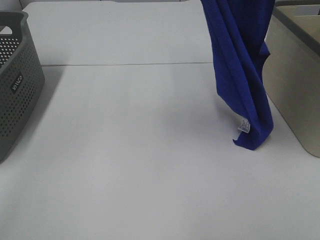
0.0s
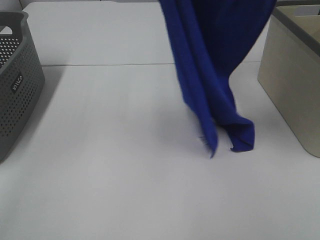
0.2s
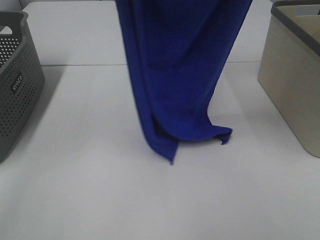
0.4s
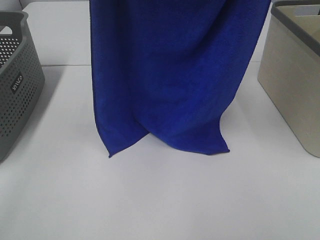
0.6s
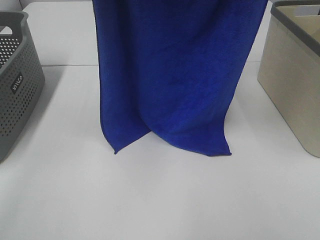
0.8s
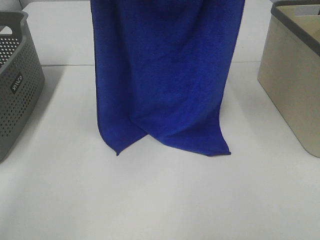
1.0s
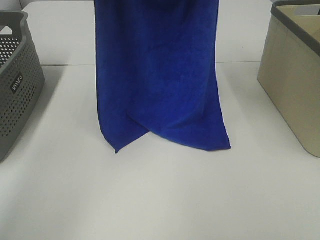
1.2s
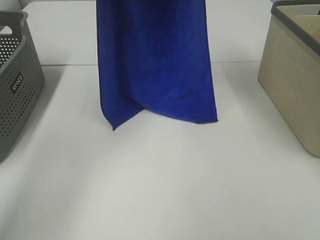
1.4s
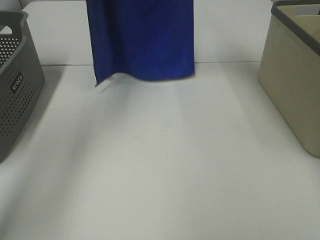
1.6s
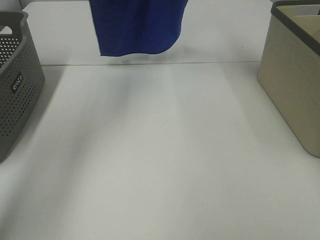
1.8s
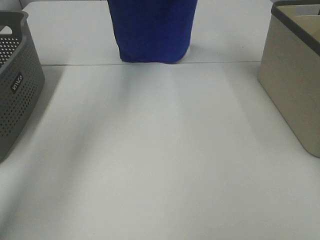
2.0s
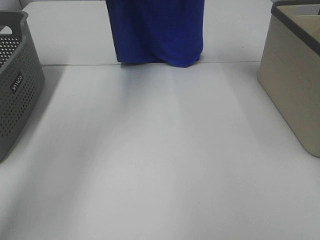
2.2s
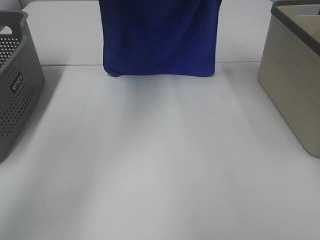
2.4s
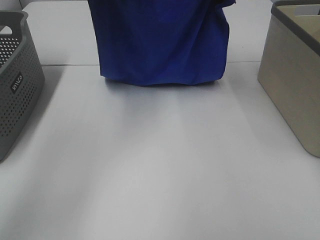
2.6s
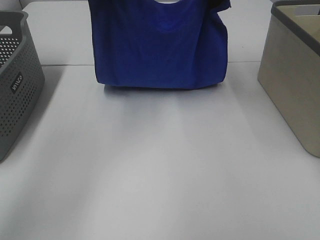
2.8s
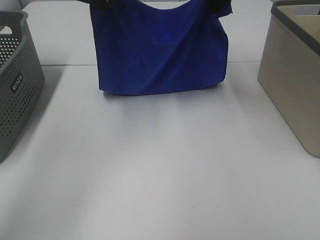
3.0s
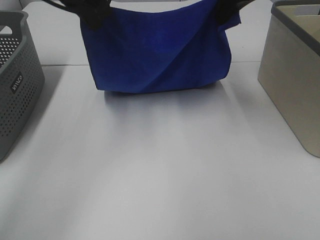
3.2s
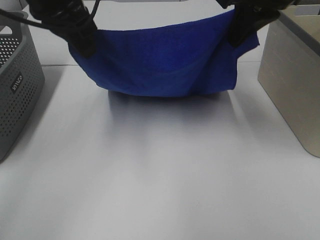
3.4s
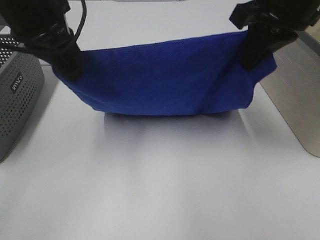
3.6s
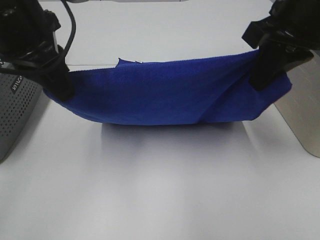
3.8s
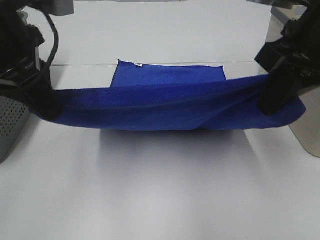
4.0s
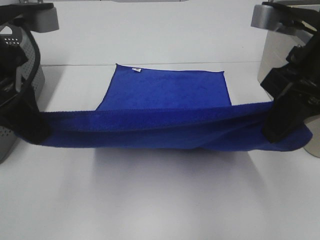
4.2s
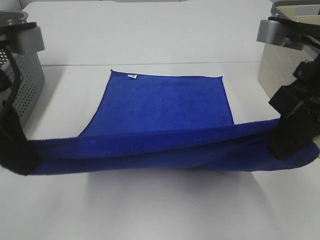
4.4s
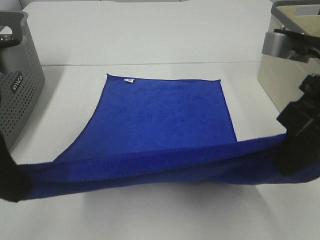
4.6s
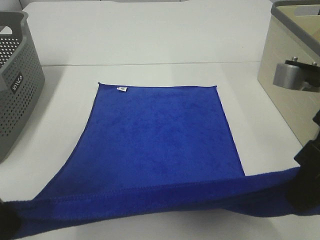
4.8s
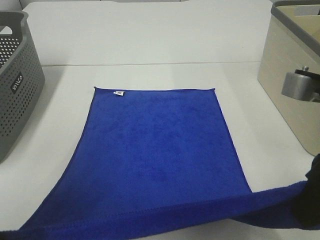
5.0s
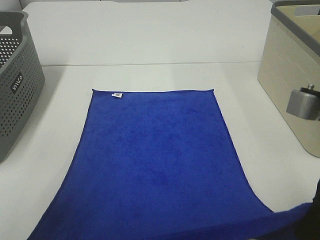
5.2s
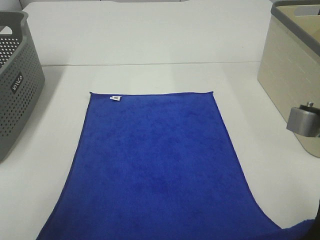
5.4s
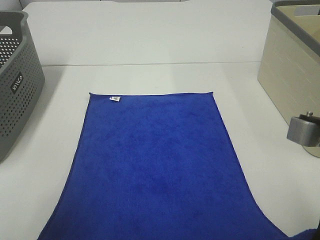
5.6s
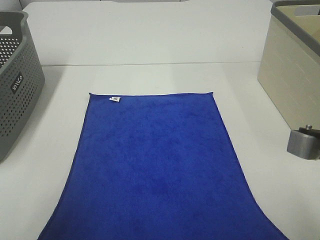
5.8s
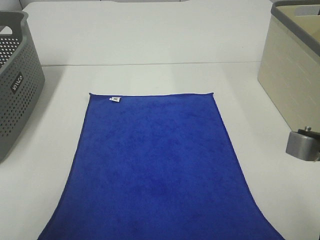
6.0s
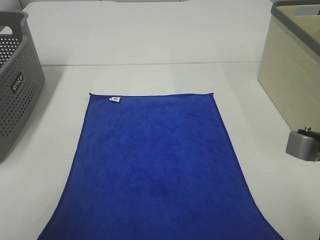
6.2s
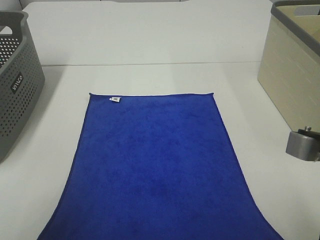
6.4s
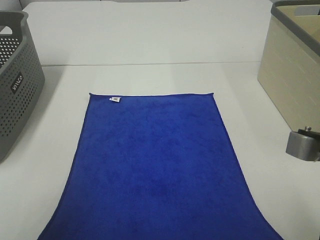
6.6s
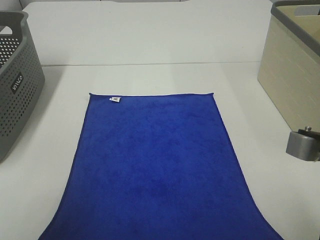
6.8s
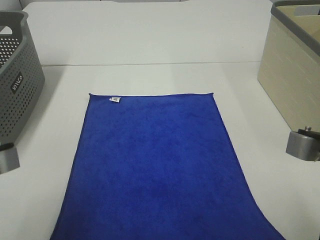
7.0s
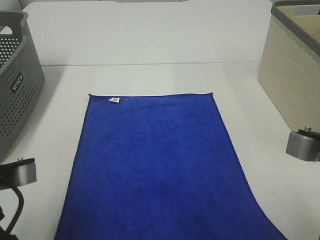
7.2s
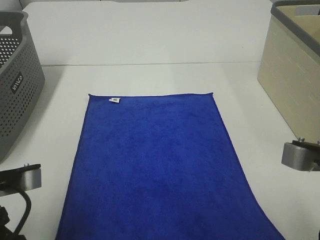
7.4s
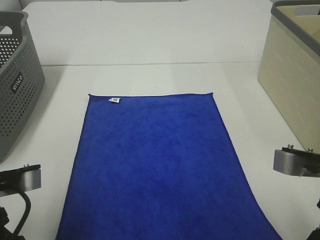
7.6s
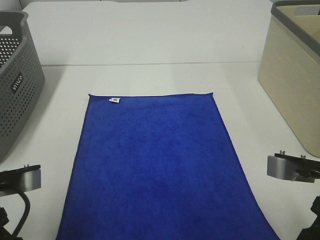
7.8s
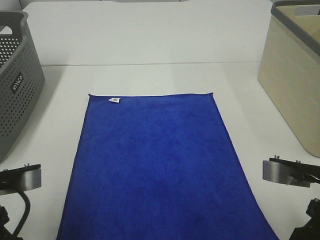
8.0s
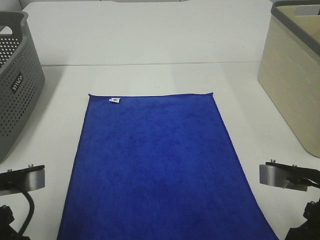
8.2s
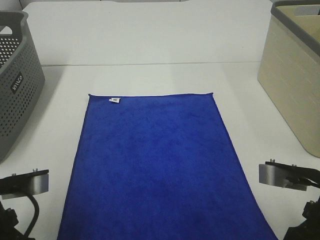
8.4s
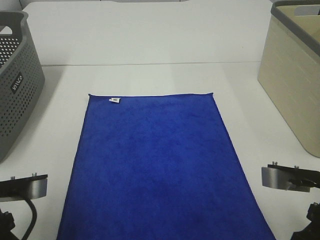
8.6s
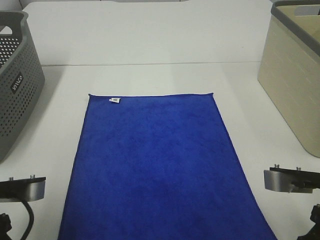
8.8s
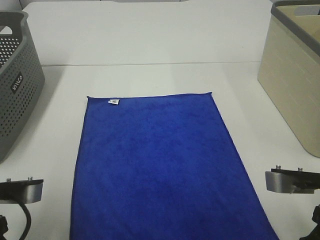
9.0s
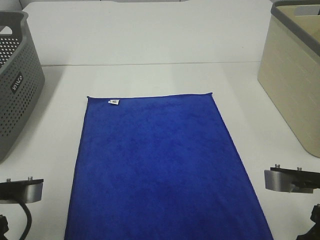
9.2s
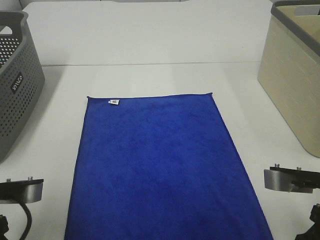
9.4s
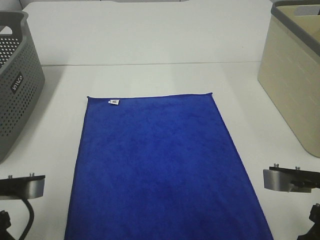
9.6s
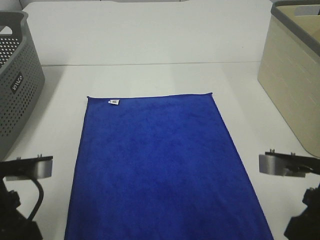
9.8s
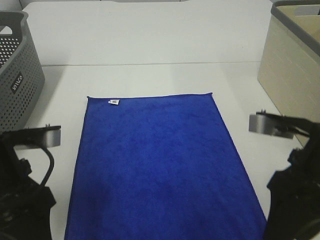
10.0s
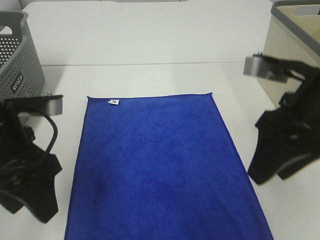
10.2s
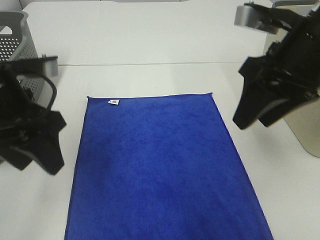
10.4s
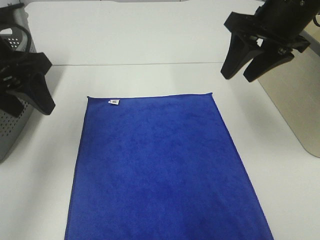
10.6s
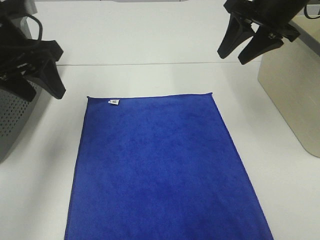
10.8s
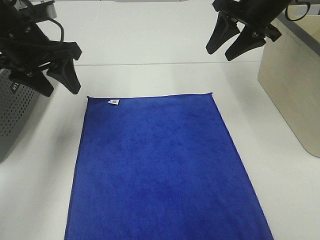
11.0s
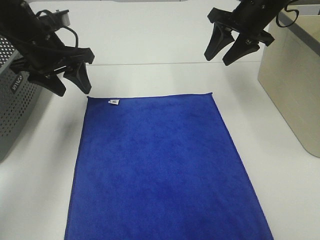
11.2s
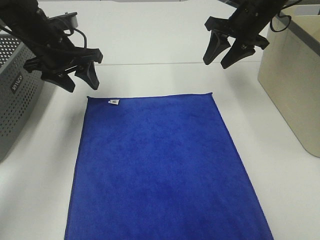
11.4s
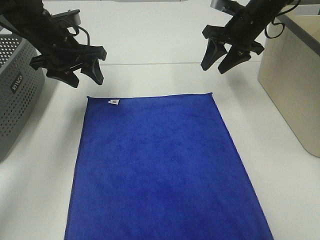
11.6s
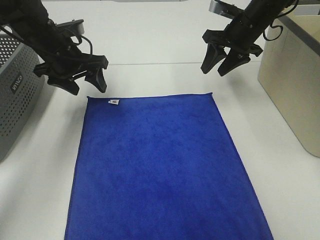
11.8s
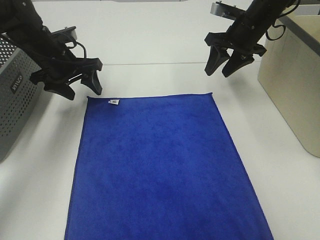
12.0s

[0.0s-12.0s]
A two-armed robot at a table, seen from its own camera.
Task of the whole recording: Remove the towel and place it.
Step, 0.0s to 4.2s: Left hand: spread the blue towel flat on the table.
Step, 0.0s to 4.2s: Right hand: spread the blue towel flat on the table.
Step, 4.4s to 11.6s: Right hand:adjust the blue towel.
0.0s to 1.6s: The right gripper travels forward by some 20 cm. Meanwhile the left gripper heads forward and to the left, covering approximately 20 cm.
1.6s to 3.0s: The grippers both shift downward by about 15 cm.
3.0s to 4.4s: Both grippers travel together backward, about 20 cm.
4.4s to 6.0s: Both grippers travel together backward and downward, some 10 cm.
6.0s to 7.6s: The left gripper changes place by roughly 5 cm.
7.6s to 9.0s: The left gripper opens up, while the right gripper opens.
9.0s to 10.4s: The two grippers go approximately 15 cm forward and upward.
10.4s to 12.0s: The two grippers go some 25 cm forward and downward.

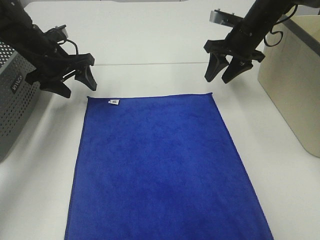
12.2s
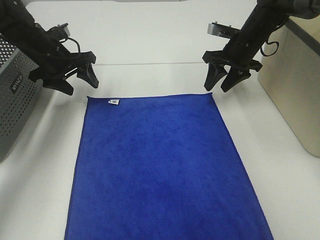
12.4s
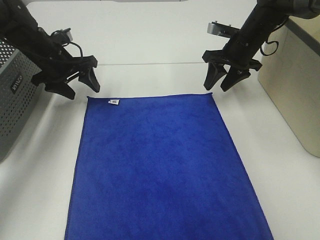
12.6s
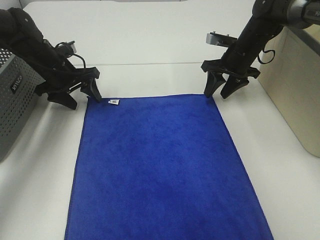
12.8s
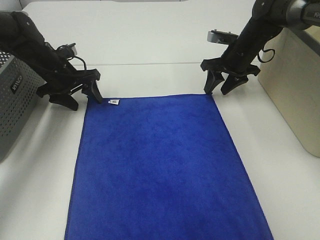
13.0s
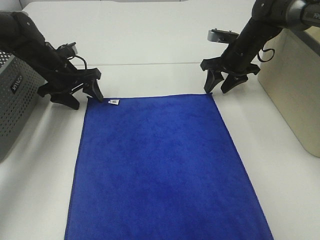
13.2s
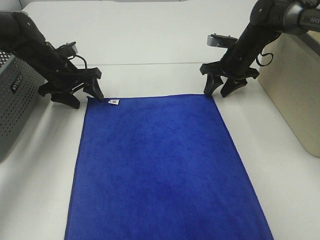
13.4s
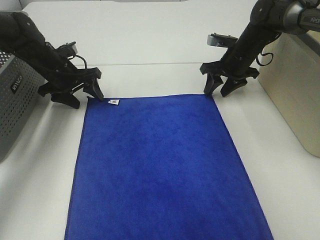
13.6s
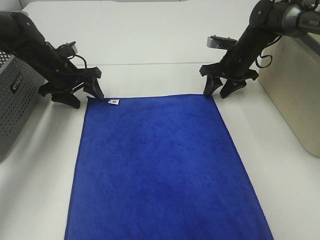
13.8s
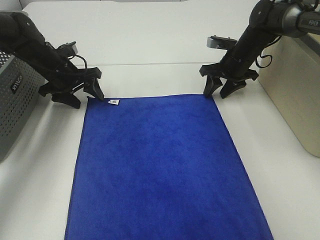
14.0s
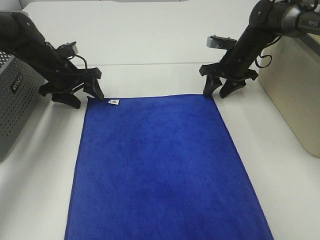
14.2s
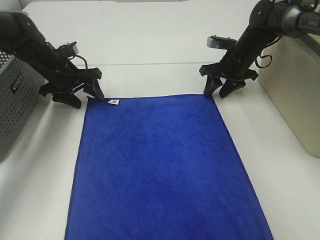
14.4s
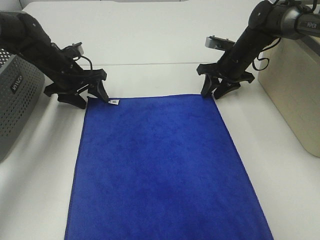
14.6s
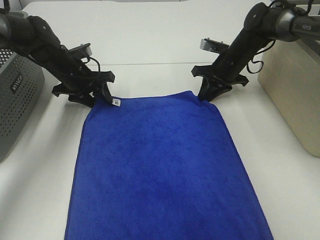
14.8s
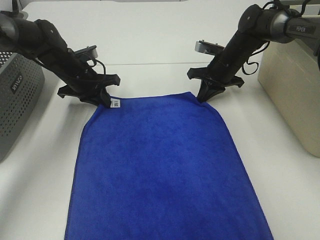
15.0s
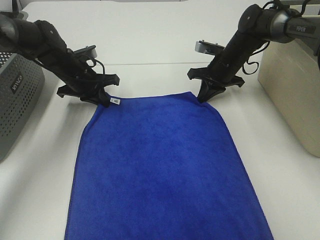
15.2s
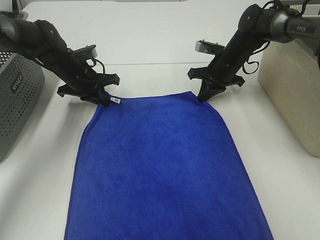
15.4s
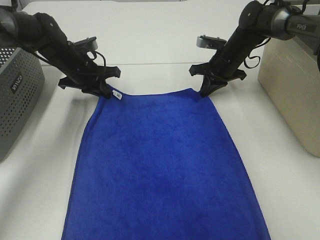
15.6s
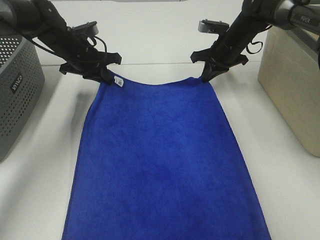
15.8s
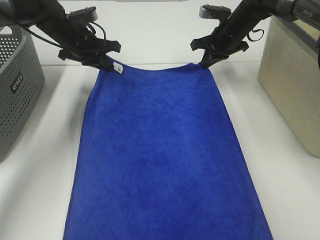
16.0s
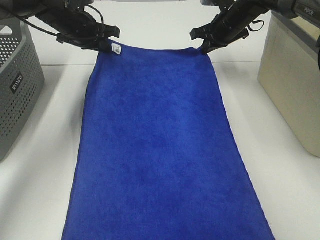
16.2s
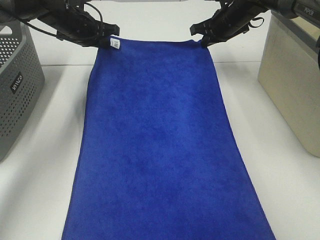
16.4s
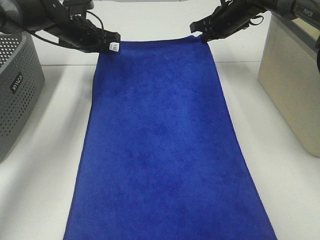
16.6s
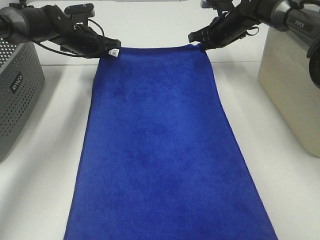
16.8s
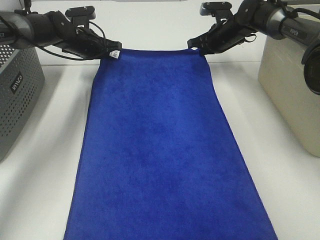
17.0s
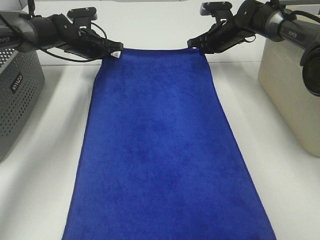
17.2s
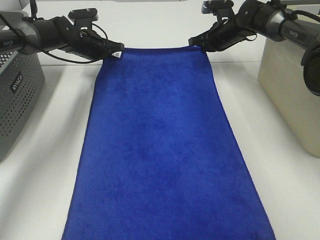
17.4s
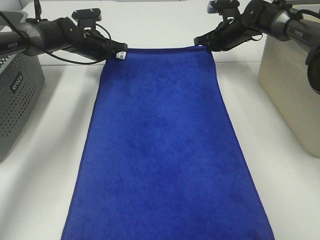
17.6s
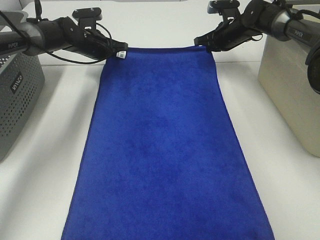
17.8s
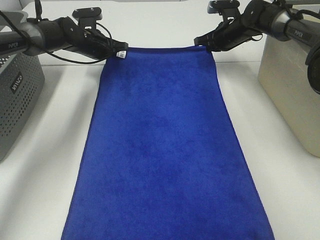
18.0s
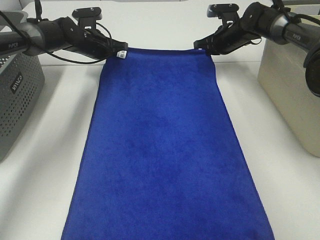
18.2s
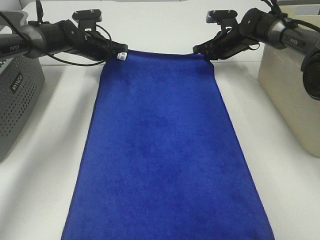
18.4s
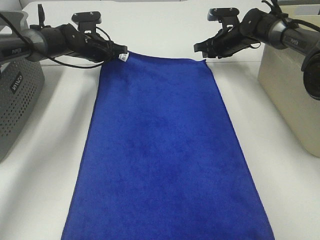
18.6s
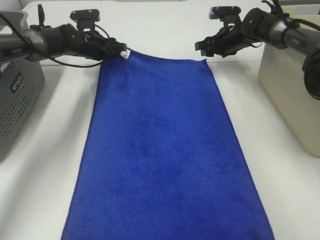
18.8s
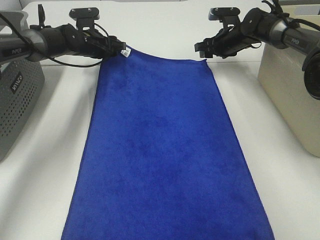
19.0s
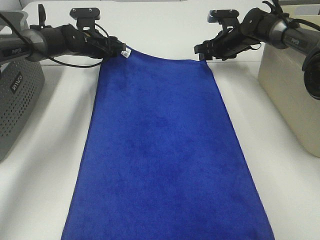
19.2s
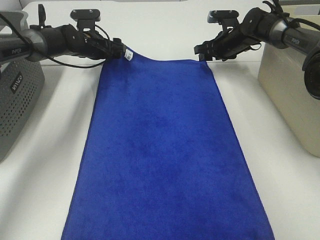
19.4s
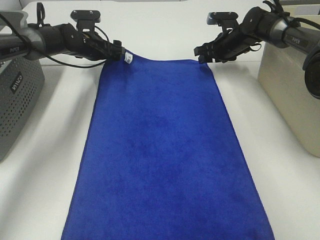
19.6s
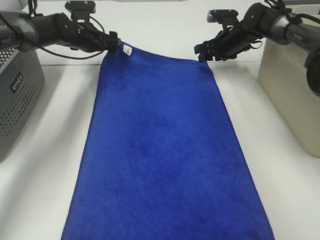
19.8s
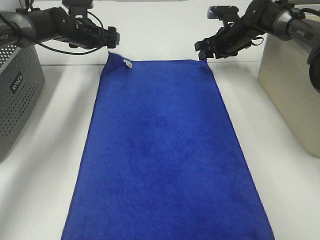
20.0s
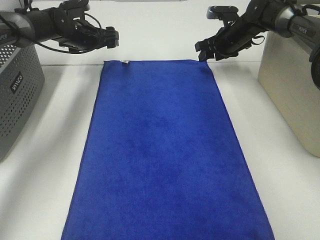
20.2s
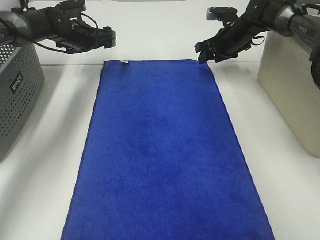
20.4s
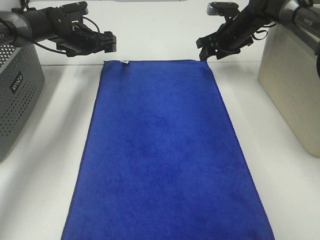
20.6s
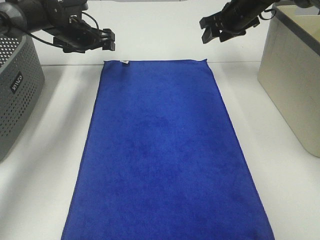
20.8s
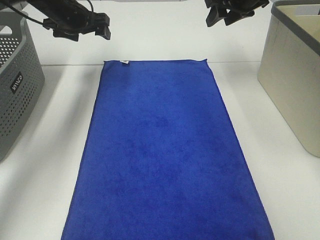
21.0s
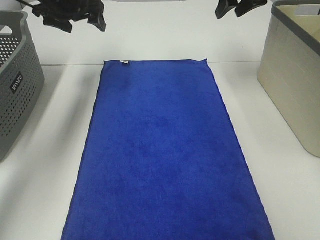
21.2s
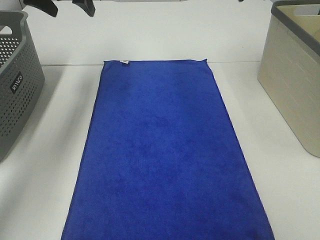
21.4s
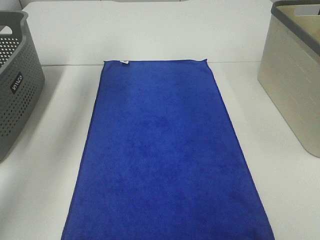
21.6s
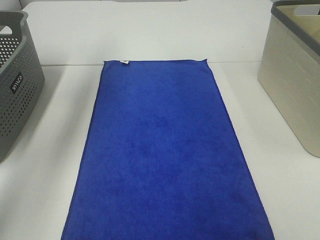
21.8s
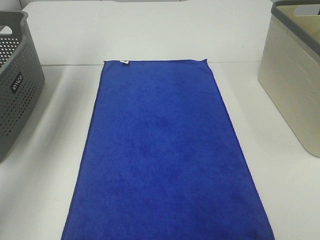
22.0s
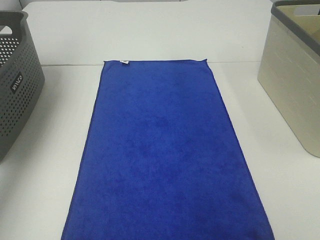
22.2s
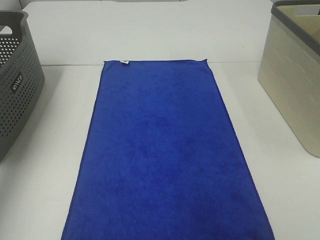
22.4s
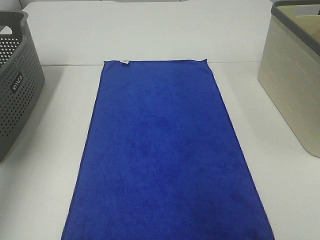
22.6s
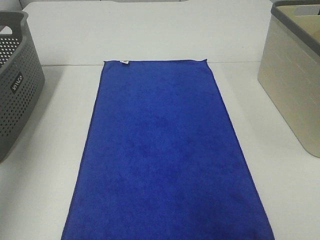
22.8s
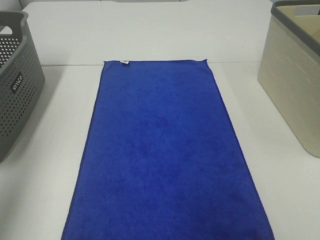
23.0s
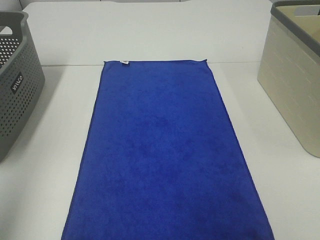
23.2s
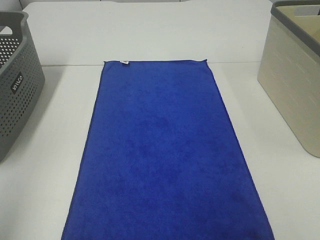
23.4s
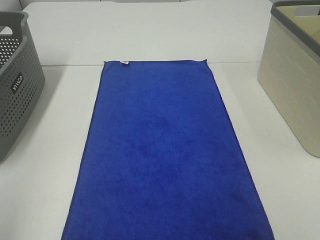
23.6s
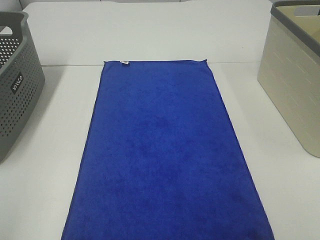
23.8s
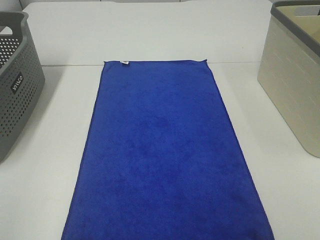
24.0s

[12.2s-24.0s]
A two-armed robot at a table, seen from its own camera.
Task of the whole recording: Remove the towel and place it.
12.2s to 13.6s: The left gripper changes place by some 5 cm. The right gripper heads downward, covering about 5 cm.
13.6s to 15.2s: The right gripper closes, while the left gripper closes its fingers.
15.2s to 16.6s: The left gripper heads forward and upward, covering roughly 10 cm. The right gripper heads upward and forward, covering some 10 cm.
16.6s to 18.2s: The right gripper moves downward, about 5 cm.
18.2s to 19.6s: The right gripper opens its fingers. The left gripper opens up.
19.6s to 21.0s: The two grippers go about 15 cm upward.
21.0s to 22.6s: The right gripper is displaced backward and upward by about 35 cm, while the left gripper shifts some 35 cm backward, upward and to the left.
22.6s to 24.0s: The left gripper shifts roughly 30 cm backward.
